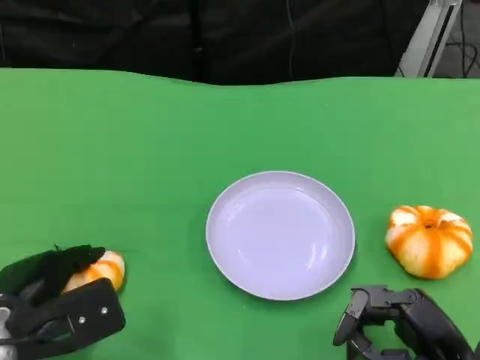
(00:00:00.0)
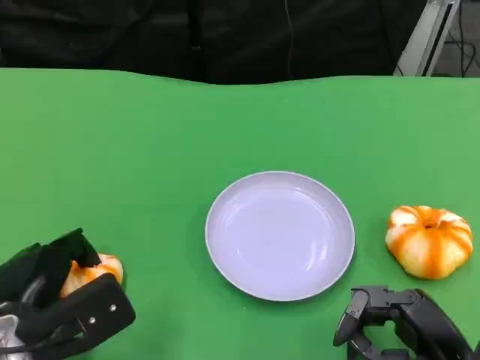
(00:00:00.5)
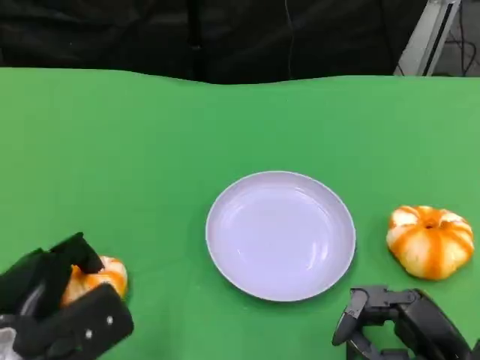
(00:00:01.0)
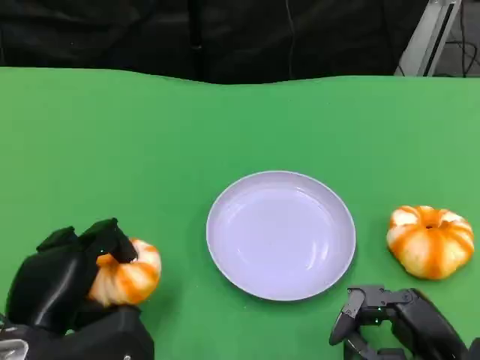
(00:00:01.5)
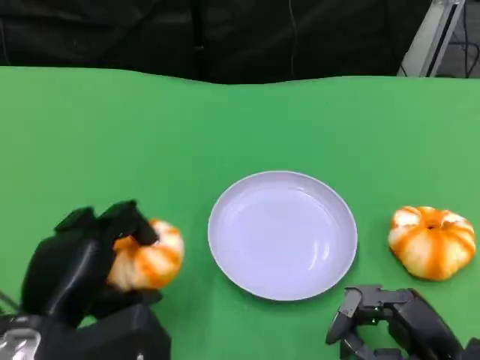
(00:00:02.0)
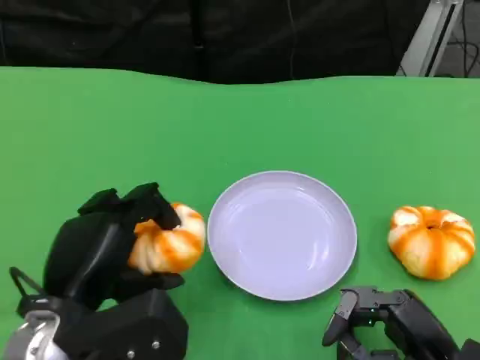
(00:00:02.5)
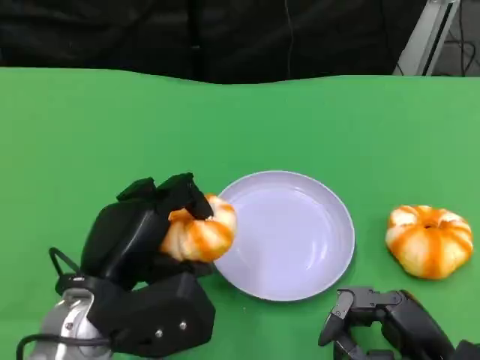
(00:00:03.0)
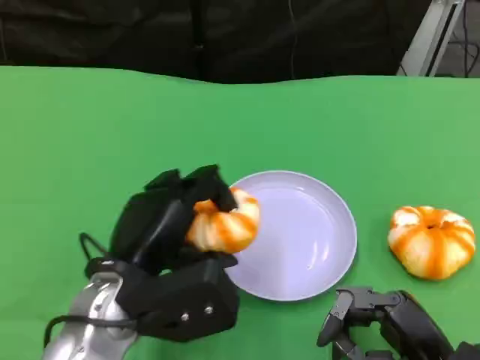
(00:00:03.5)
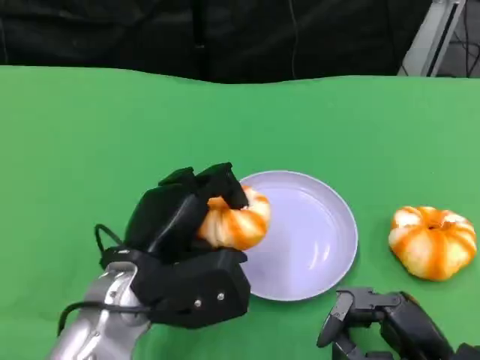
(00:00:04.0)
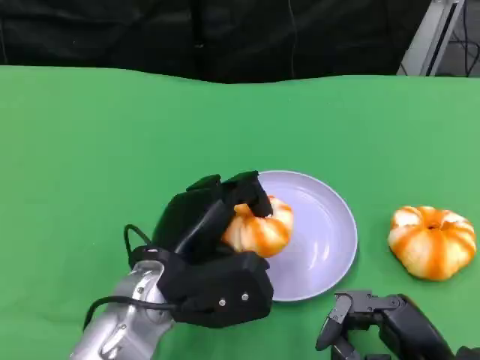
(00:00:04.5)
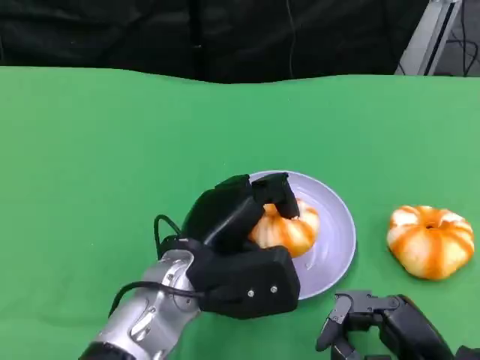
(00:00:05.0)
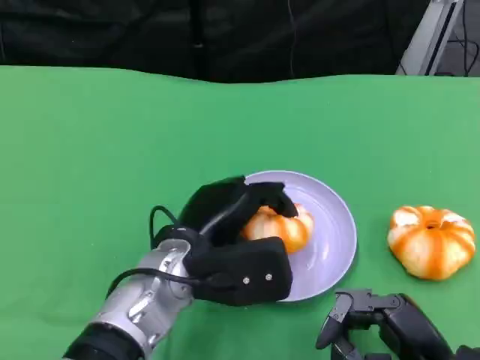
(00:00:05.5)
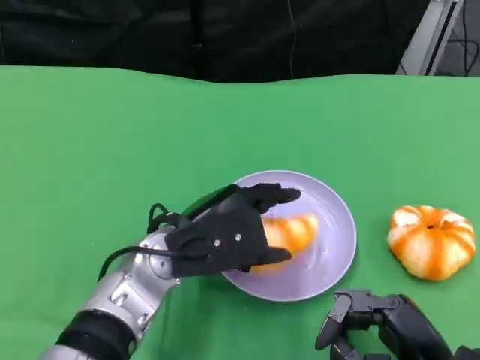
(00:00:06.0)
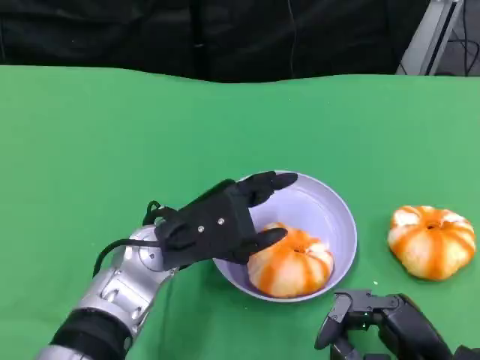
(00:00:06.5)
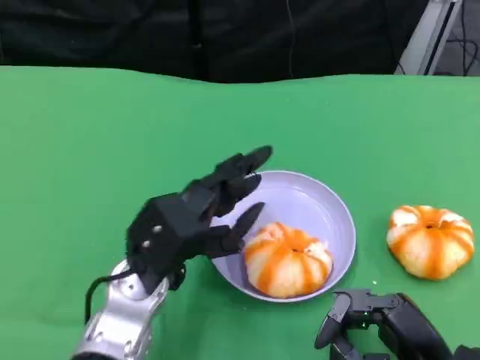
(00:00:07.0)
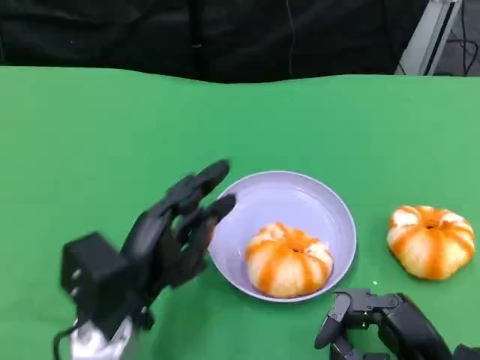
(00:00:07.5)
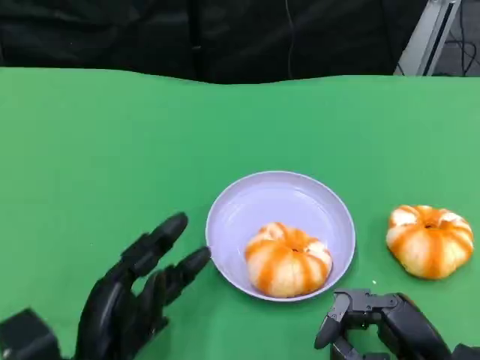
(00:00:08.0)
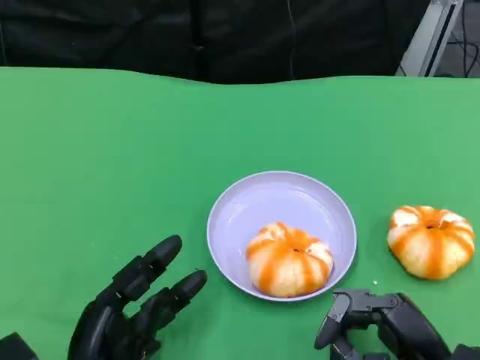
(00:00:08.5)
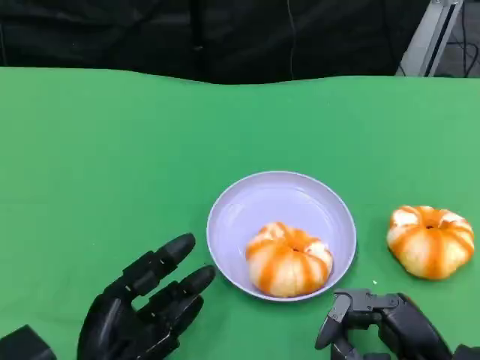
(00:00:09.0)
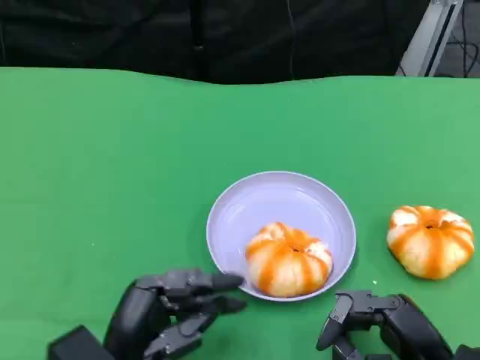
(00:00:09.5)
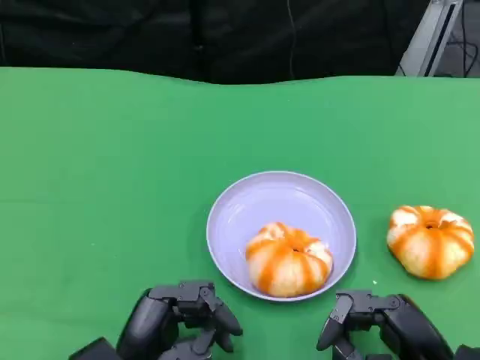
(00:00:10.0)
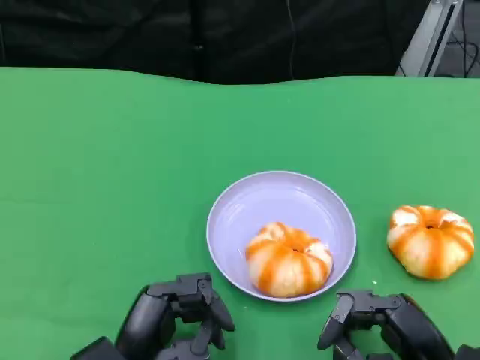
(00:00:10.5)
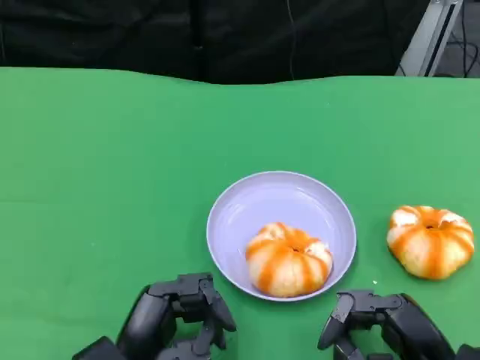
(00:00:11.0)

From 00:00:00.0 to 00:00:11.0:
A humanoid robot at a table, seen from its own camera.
Task of the whole recording: Grasp the bread from the table and place it into the plate.
From 00:00:00.0 to 00:00:02.0: The left hand shifts by about 5 cm.
From 00:00:02.0 to 00:00:03.5: The left hand shifts approximately 5 cm to the right.
From 00:00:03.5 to 00:00:05.5: The left hand heads to the right, covering approximately 5 cm.
From 00:00:05.5 to 00:00:07.5: The left hand heads to the left, covering approximately 5 cm.
From 00:00:07.5 to 00:00:09.0: The left hand travels backward by about 5 cm.

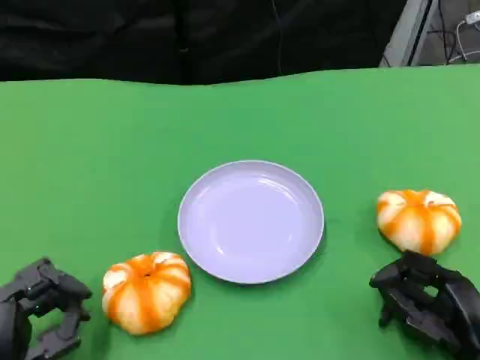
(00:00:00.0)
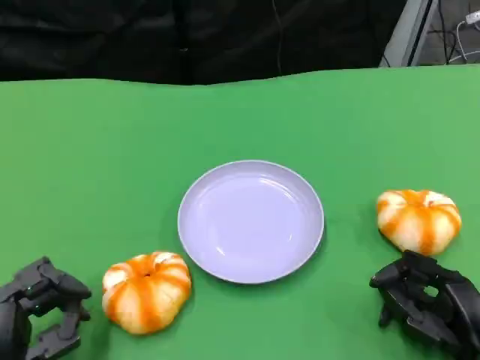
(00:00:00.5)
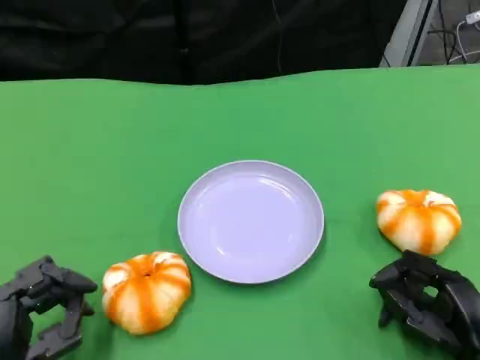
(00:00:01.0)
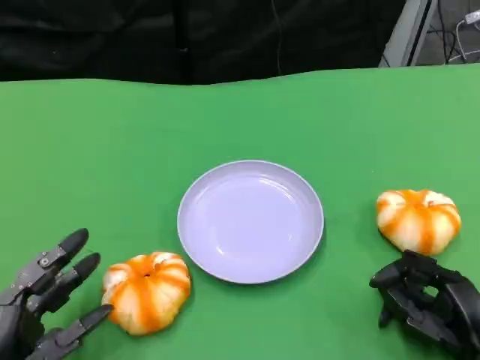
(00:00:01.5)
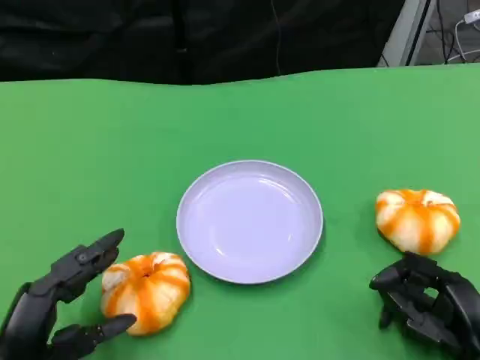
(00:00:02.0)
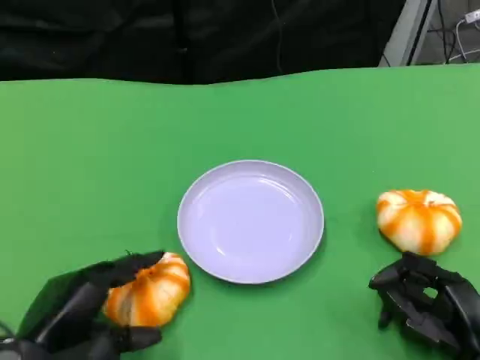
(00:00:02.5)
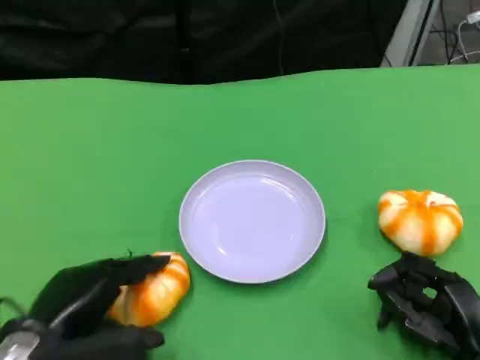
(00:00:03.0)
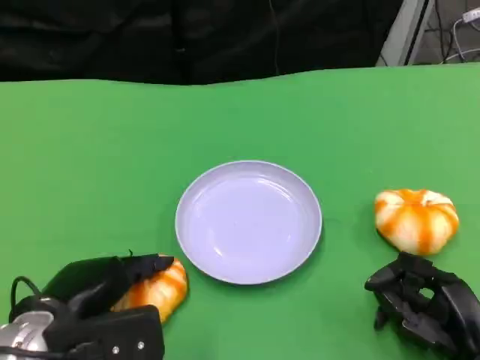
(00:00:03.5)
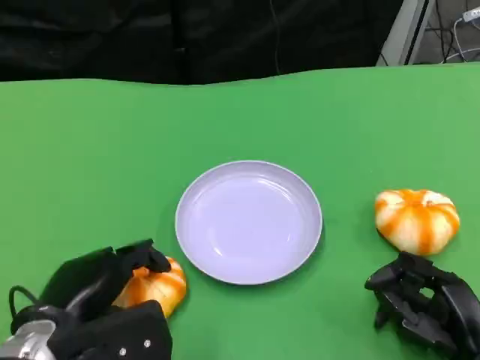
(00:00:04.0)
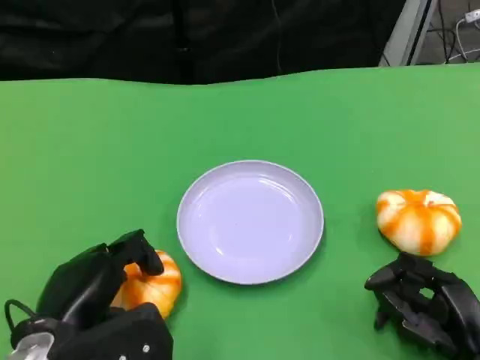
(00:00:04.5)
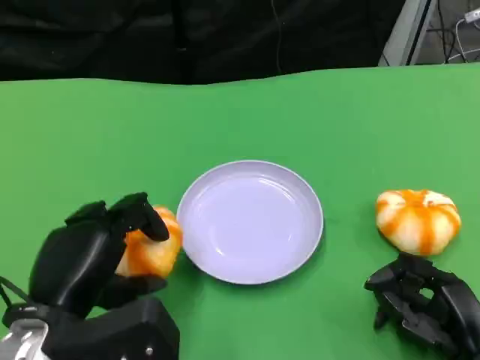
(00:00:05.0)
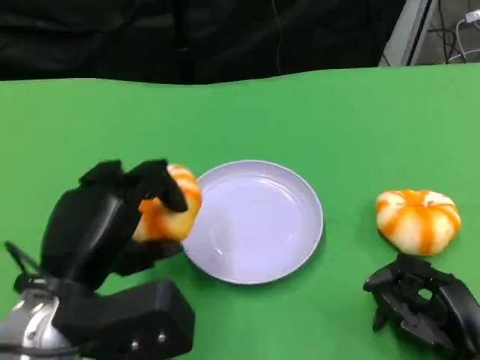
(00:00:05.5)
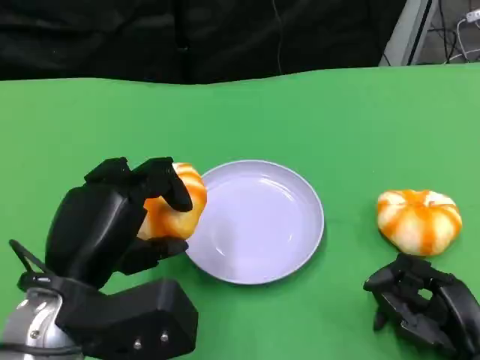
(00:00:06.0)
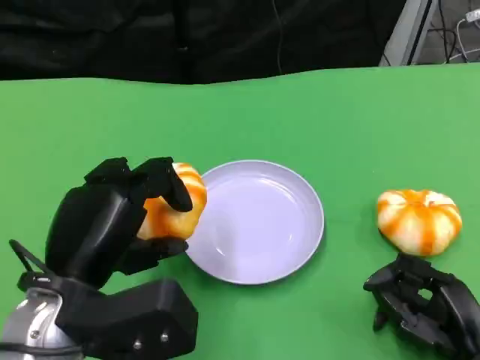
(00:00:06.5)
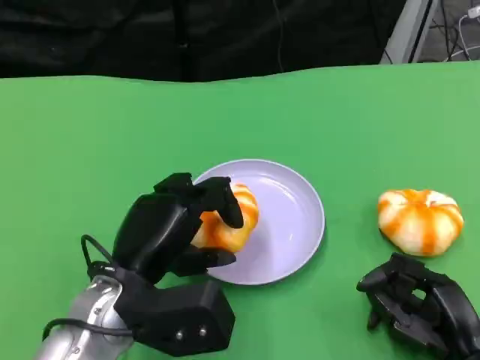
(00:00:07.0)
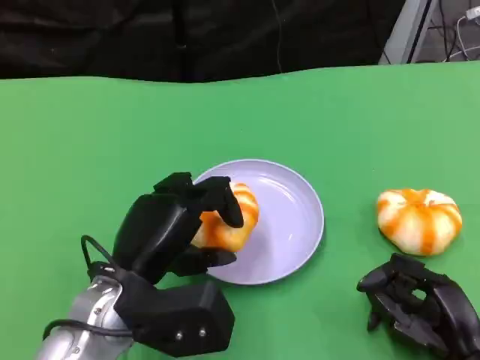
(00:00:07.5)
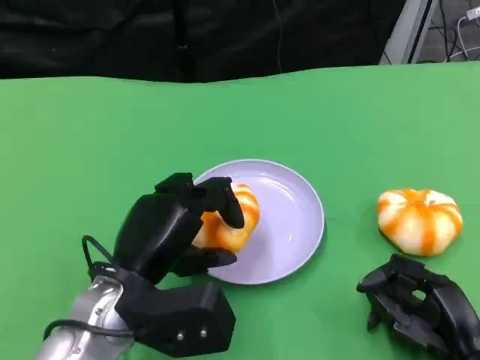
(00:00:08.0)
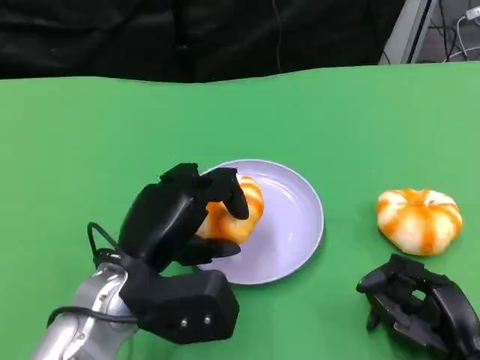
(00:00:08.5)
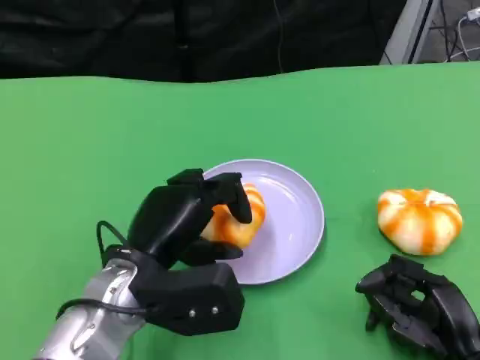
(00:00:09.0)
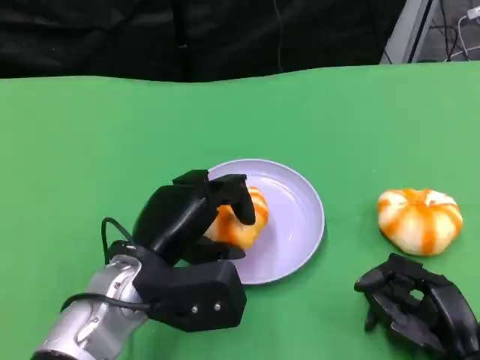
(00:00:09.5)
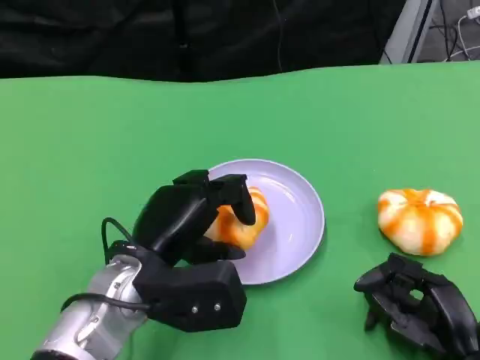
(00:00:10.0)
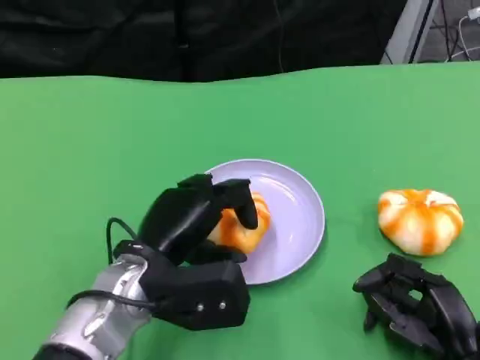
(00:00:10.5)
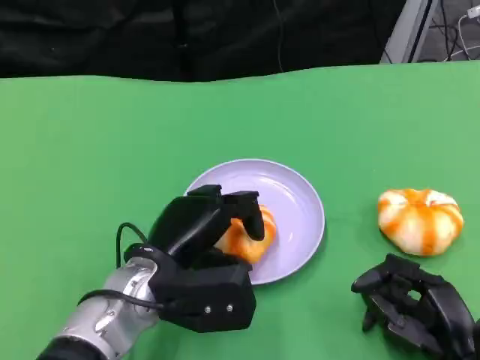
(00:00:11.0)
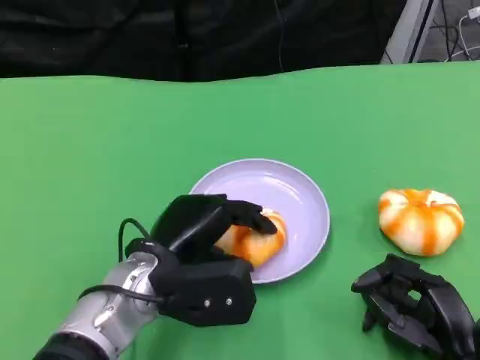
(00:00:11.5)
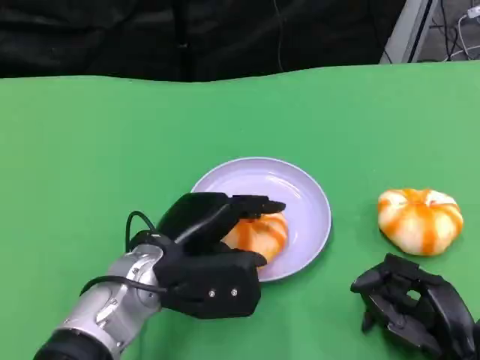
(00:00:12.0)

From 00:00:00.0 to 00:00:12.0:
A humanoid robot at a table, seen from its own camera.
Task of the whole recording: Grasp the bread from the table and place it into the plate.
From 00:00:00.0 to 00:00:02.0: There are only small adjustments of the hands.
From 00:00:02.0 to 00:00:04.0: The left hand moves about 5 cm.
From 00:00:04.0 to 00:00:06.0: The left hand moves upward, approximately 5 cm.
From 00:00:06.0 to 00:00:08.0: The left hand moves about 5 cm.
From 00:00:08.0 to 00:00:12.0: There are only small adjustments of the hands.

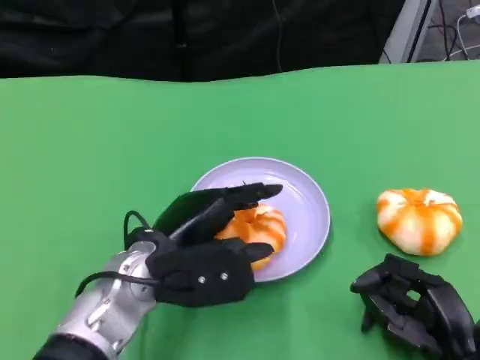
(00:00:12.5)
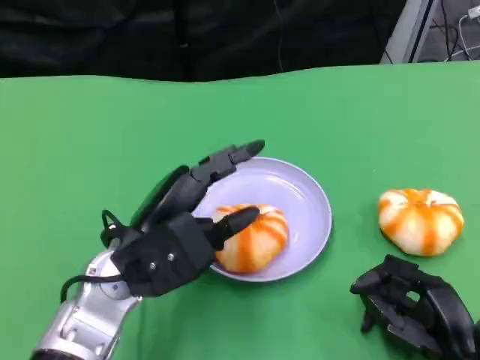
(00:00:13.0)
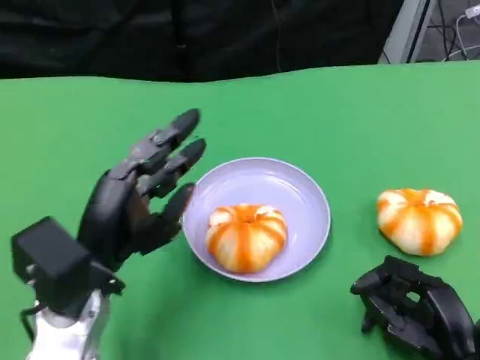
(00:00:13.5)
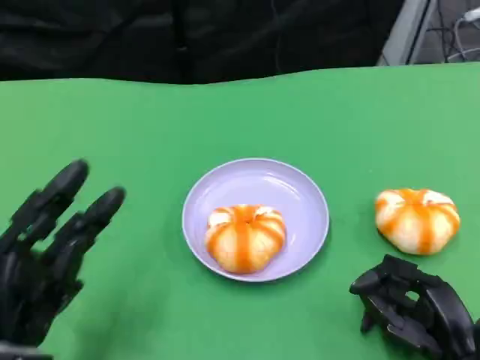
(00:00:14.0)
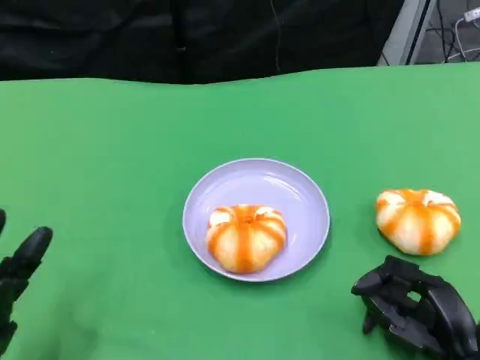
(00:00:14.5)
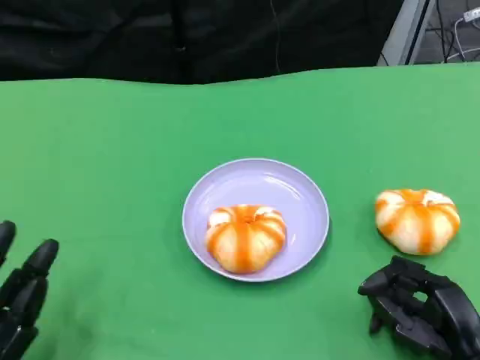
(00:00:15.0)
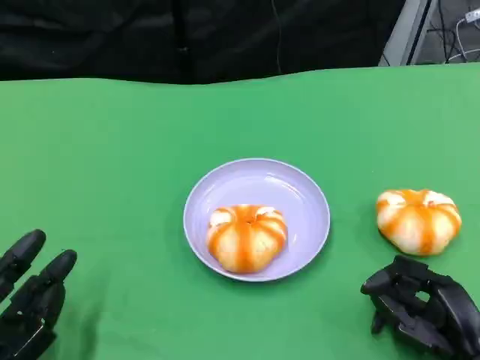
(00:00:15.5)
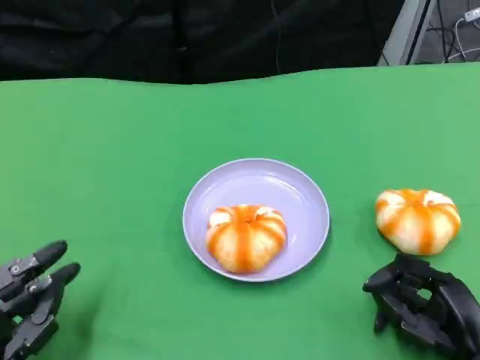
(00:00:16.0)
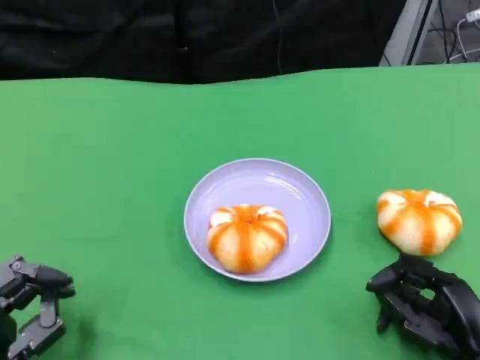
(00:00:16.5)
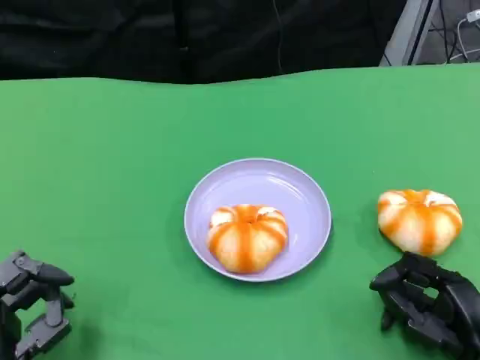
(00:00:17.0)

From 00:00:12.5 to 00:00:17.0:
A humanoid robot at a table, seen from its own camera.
Task of the whole recording: Grasp the bread from the table and place it into the plate.
From 00:00:12.5 to 00:00:14.5: The left hand travels to the left, backward and downward by about 20 cm.
